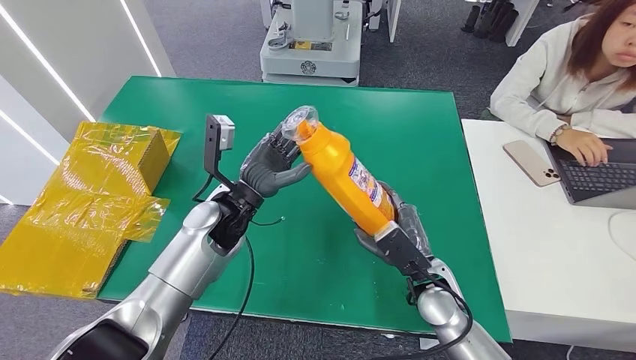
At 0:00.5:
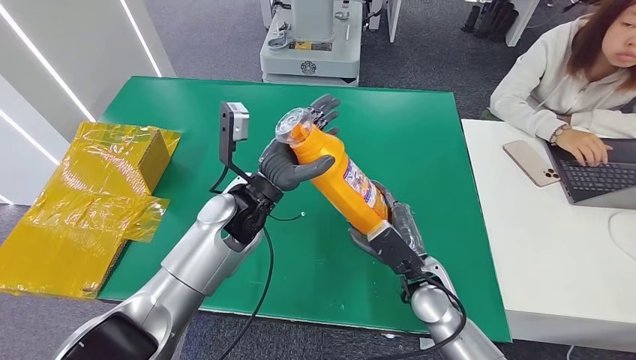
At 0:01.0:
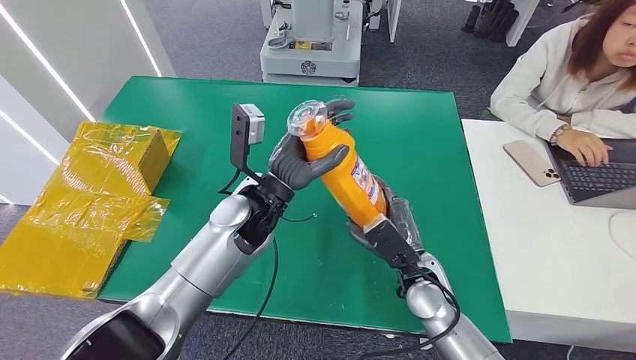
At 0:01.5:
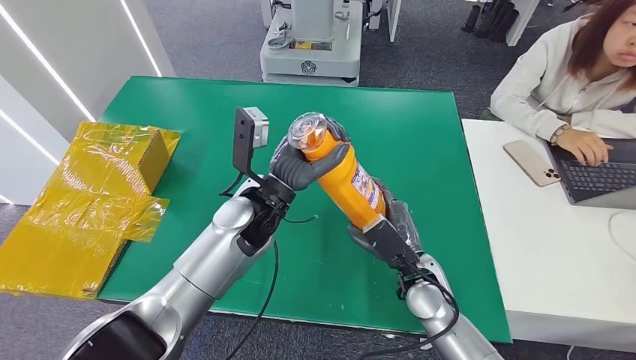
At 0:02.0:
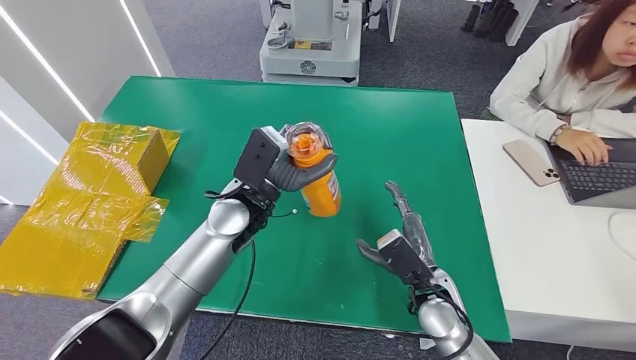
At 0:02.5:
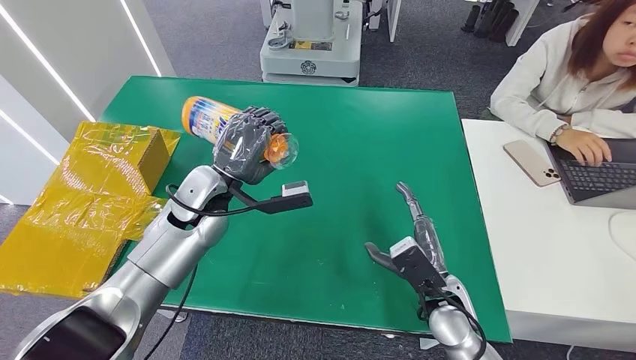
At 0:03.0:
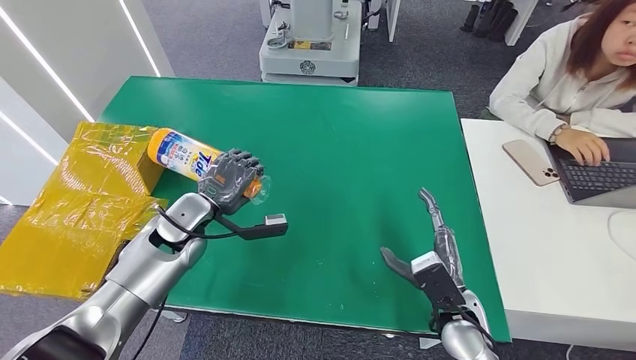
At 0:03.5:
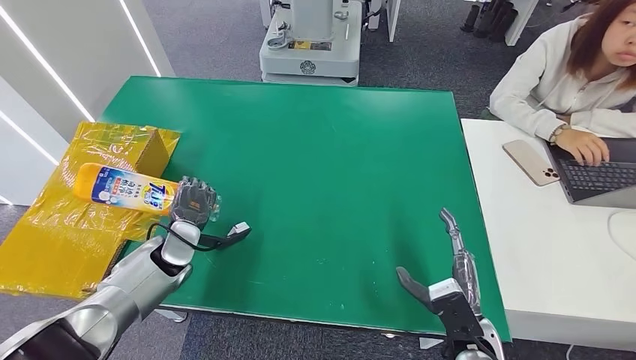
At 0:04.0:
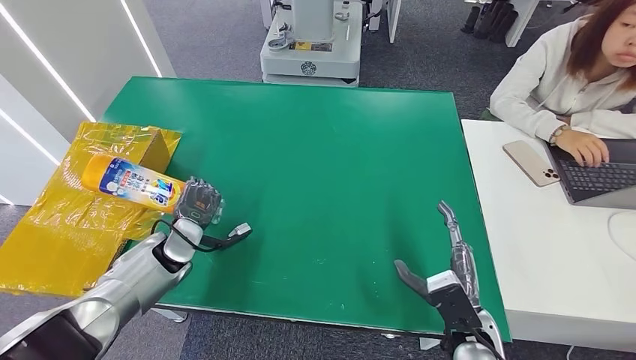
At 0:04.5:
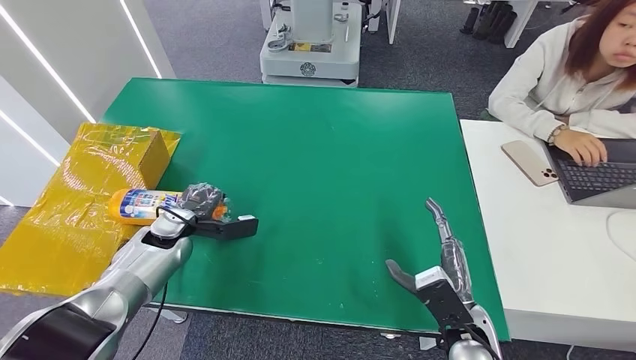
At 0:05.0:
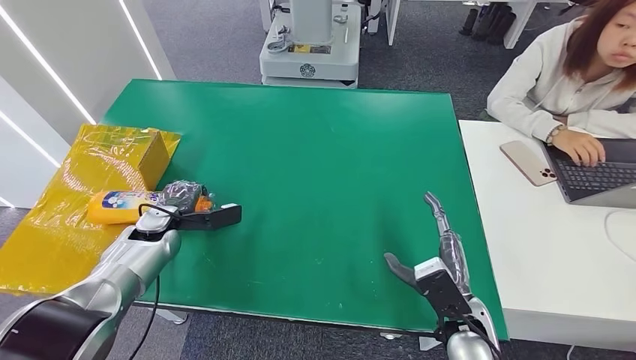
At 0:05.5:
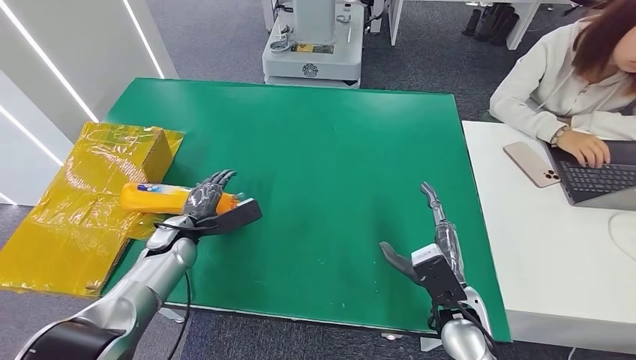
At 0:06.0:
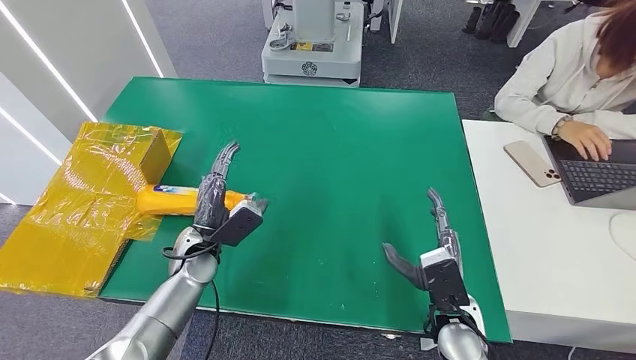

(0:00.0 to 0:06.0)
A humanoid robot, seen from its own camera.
Step, 0:00.0 - 0:06.0: Turn the bottle to the front side.
0:02.0 - 0:04.0: The right hand goes about 10 cm backward and to the right; the left hand travels to the left and downward by about 20 cm.
0:04.0 - 0:06.0: The left hand is displaced to the right by some 5 cm.
